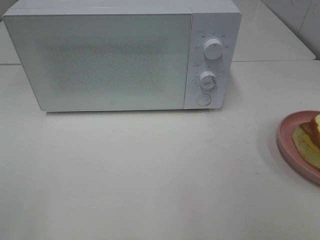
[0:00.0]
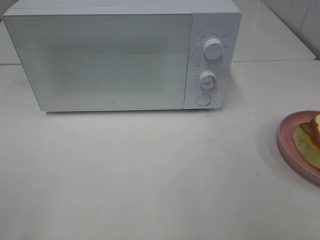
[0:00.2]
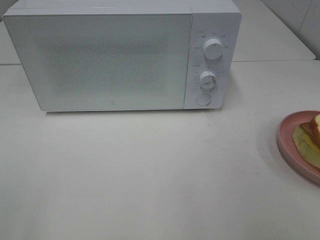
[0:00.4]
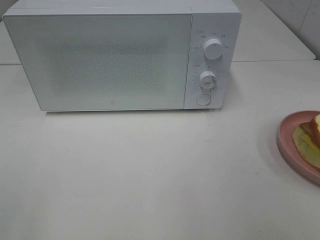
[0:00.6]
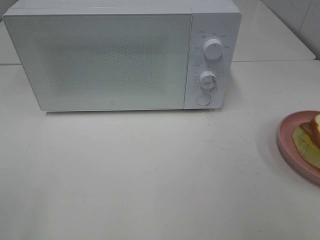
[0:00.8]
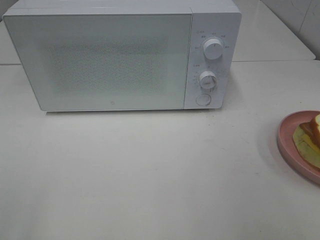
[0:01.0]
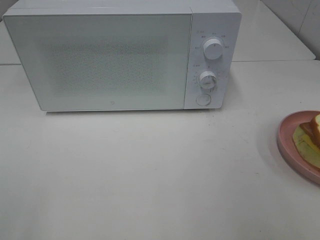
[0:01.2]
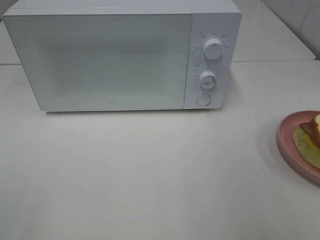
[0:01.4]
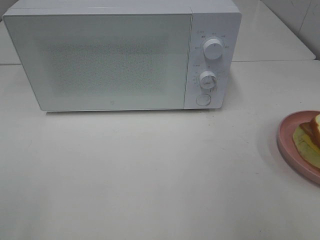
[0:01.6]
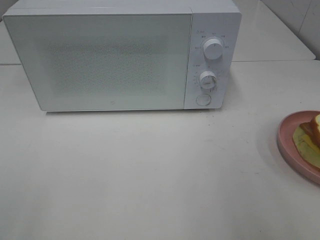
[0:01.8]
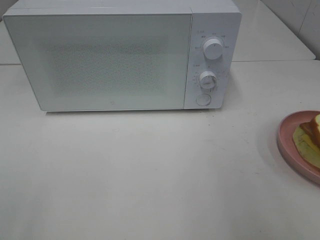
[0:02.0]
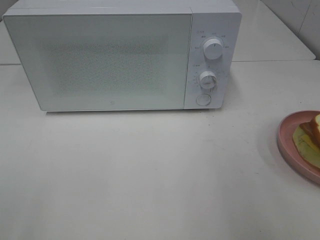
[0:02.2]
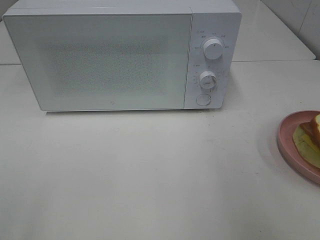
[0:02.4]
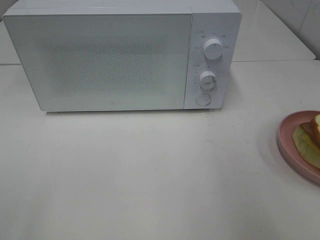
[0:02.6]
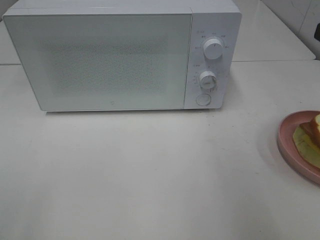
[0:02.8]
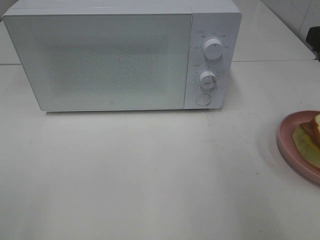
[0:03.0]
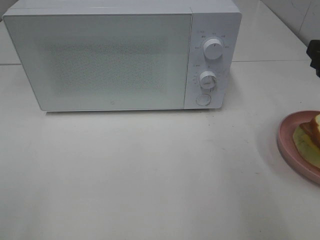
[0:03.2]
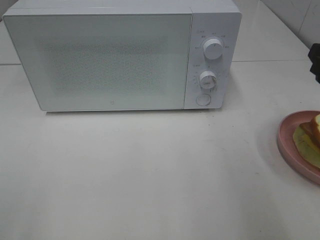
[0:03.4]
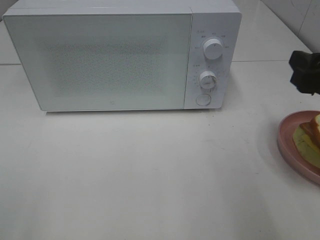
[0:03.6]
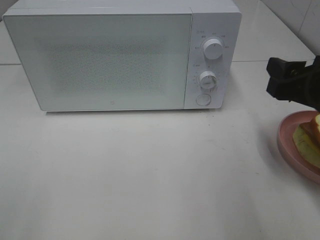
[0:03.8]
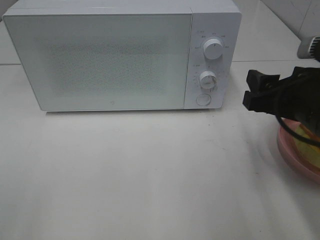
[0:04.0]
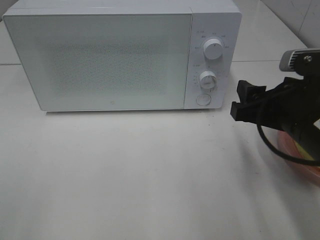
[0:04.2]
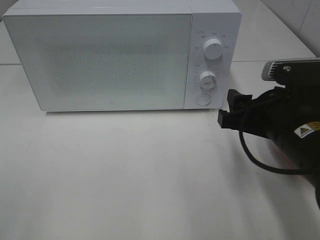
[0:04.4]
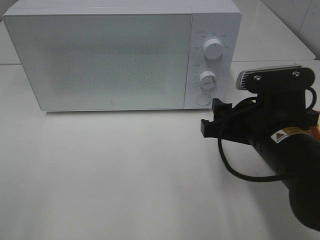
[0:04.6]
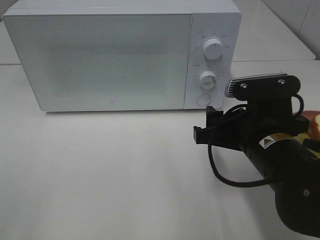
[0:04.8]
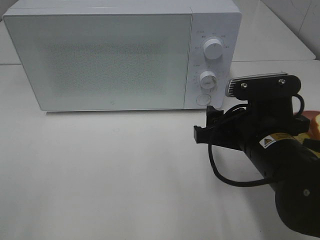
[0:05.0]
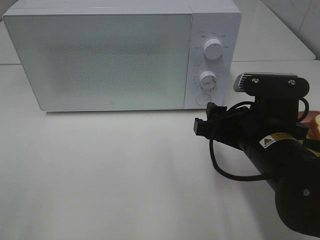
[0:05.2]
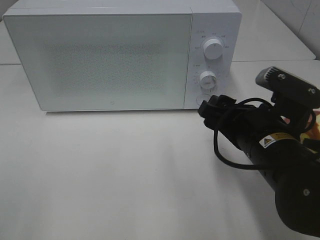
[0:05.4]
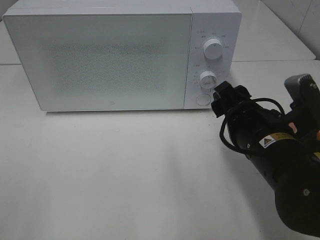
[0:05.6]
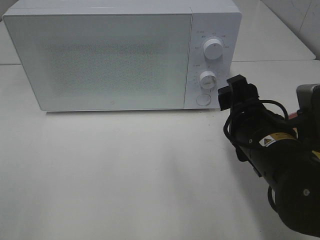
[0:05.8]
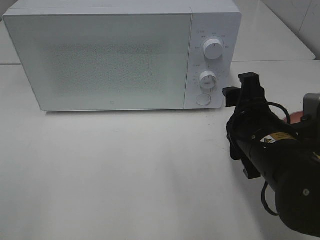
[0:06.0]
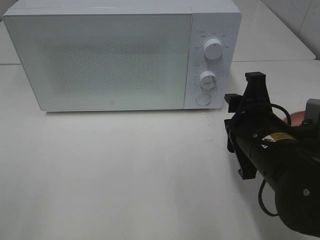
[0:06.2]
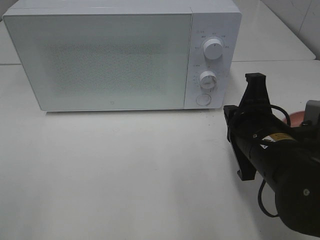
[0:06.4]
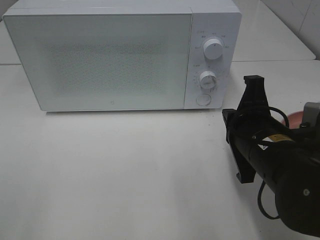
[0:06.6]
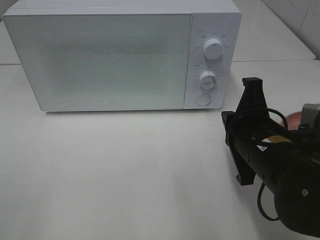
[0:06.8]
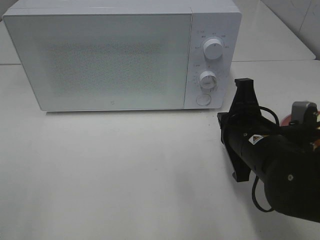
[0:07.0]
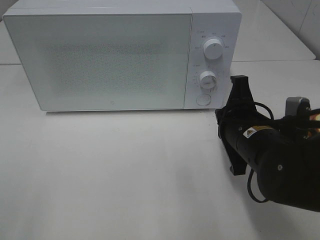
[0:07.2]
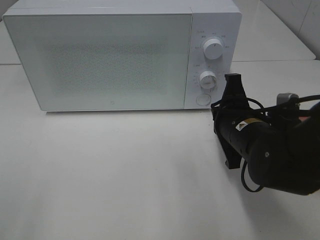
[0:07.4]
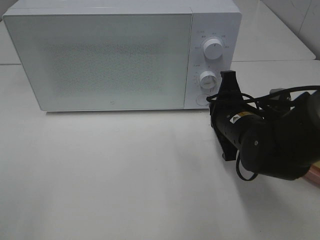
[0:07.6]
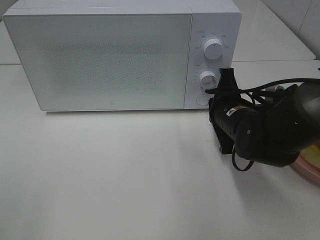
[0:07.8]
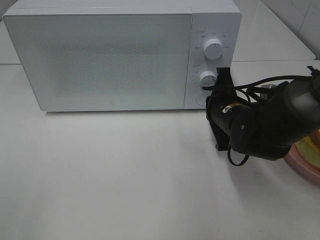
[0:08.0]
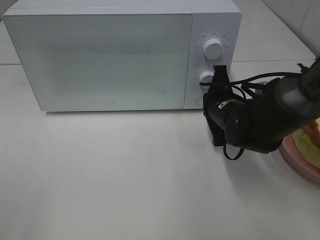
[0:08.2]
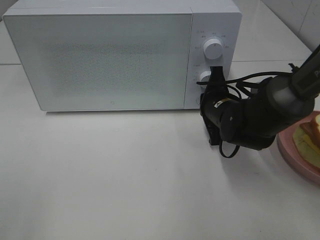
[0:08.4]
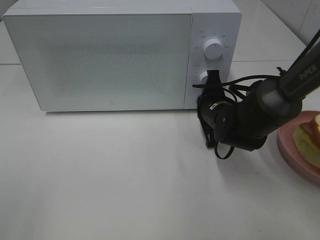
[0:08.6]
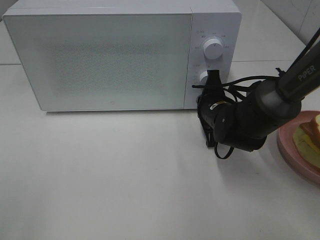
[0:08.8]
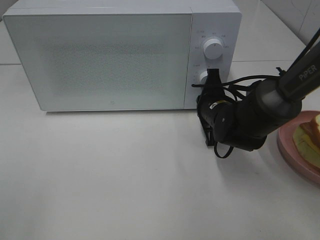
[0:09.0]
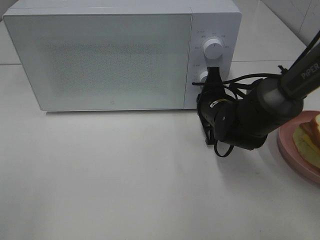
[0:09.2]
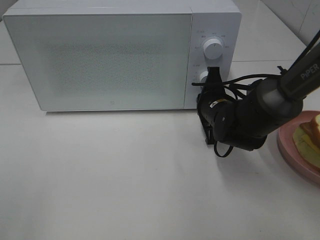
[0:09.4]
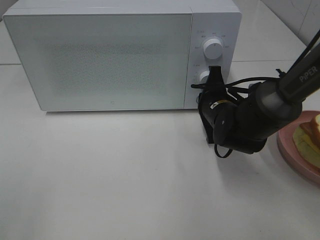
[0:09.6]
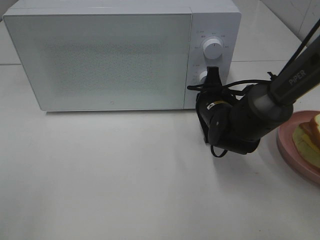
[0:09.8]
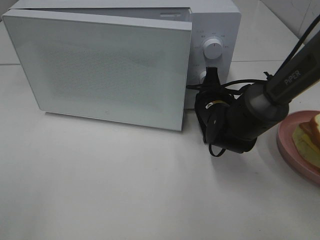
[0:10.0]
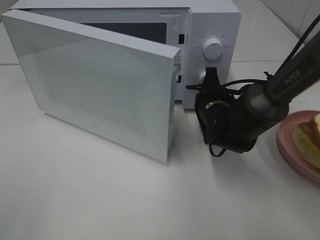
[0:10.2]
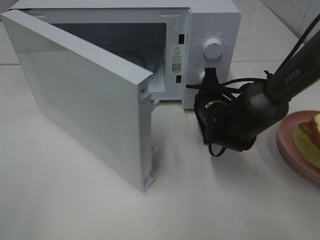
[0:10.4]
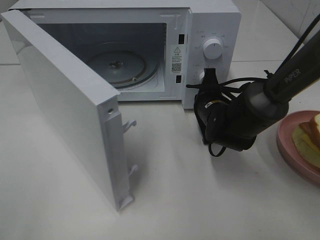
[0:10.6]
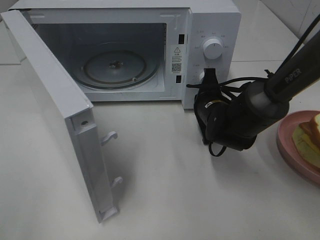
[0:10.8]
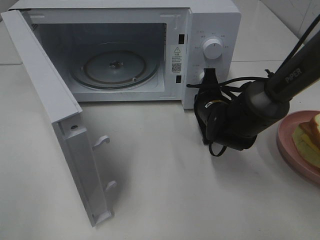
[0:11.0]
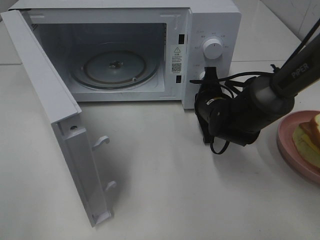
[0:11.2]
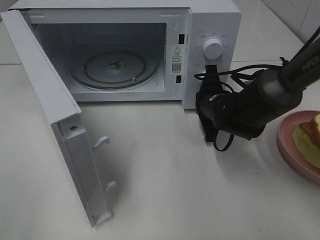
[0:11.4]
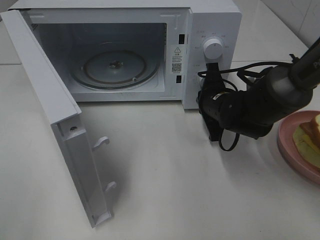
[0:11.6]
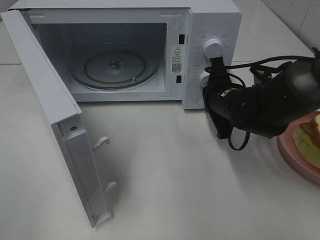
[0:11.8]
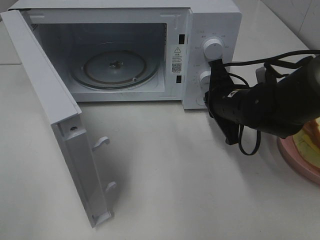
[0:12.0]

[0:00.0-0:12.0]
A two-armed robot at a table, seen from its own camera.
Task of the whole recording: Heat Sandwich.
Step, 0:00.0 to 0:11.8: Right hand: press the switch.
0:03.0 to 0:04.4: The right gripper is displaced to the left and downward by approximately 15 cm.
0:06.0 to 0:07.6: The right gripper is displaced forward by some 10 cm, and closes its fingers.
0:07.6 to 0:09.0: The right gripper heads forward, covering some 5 cm.
0:10.4 to 0:12.0: The right gripper changes place by some 5 cm.

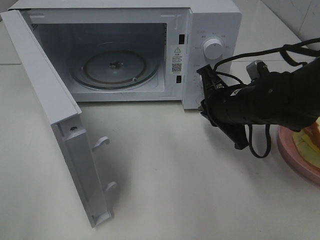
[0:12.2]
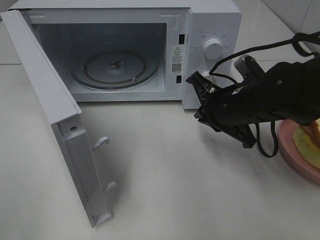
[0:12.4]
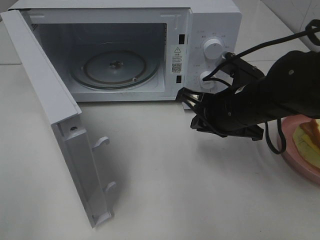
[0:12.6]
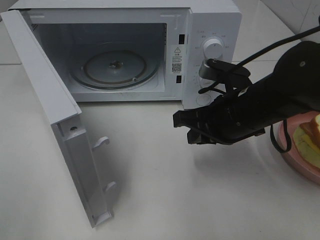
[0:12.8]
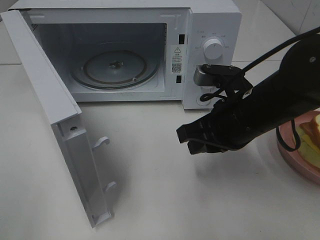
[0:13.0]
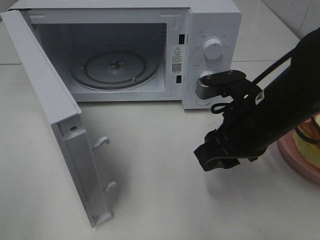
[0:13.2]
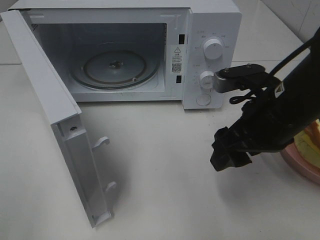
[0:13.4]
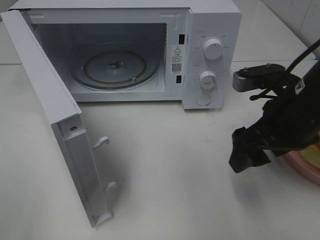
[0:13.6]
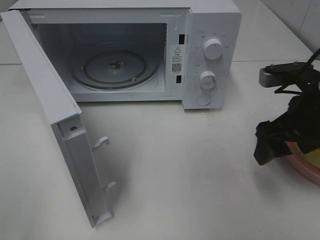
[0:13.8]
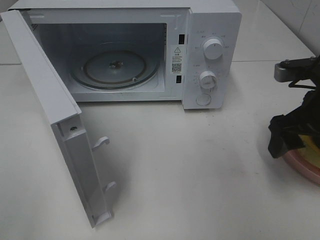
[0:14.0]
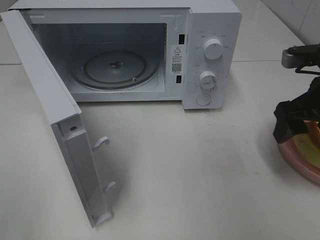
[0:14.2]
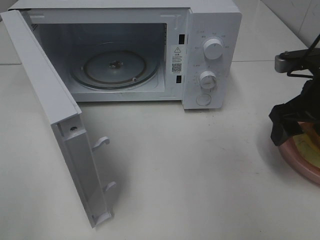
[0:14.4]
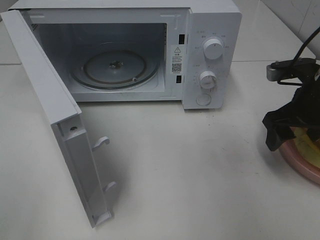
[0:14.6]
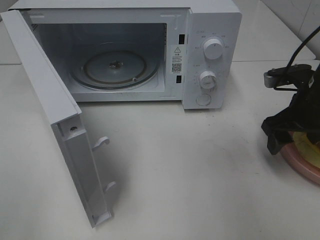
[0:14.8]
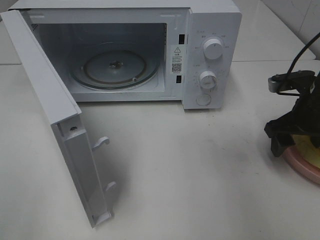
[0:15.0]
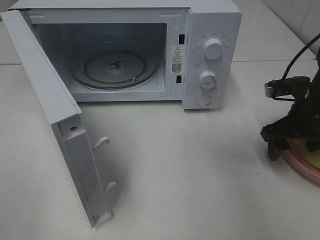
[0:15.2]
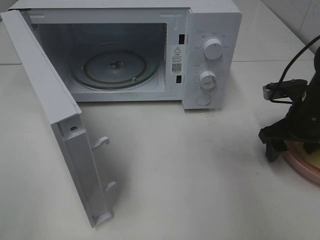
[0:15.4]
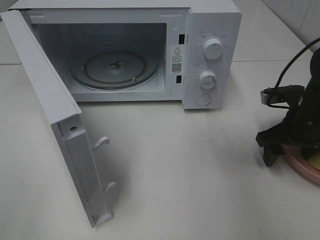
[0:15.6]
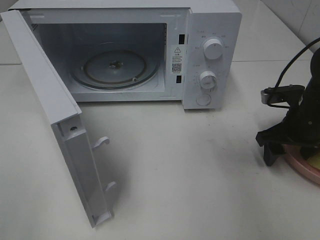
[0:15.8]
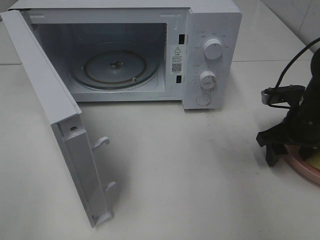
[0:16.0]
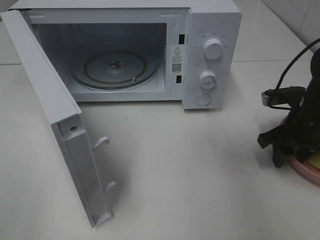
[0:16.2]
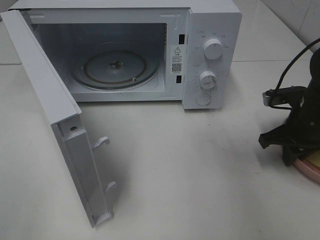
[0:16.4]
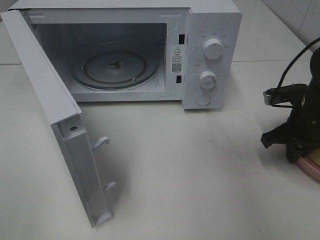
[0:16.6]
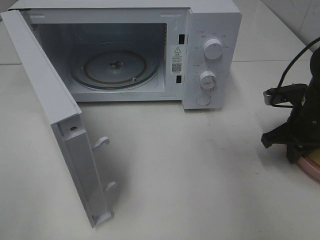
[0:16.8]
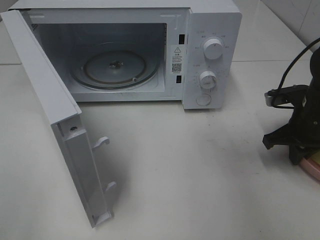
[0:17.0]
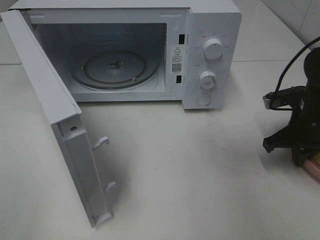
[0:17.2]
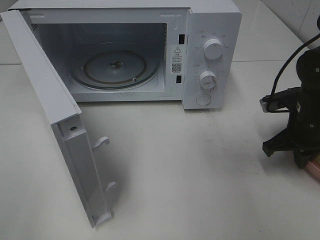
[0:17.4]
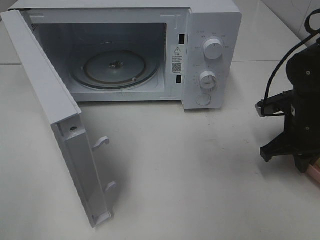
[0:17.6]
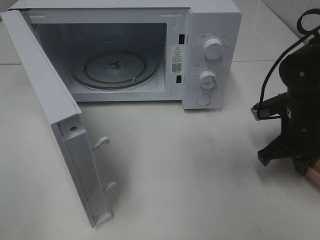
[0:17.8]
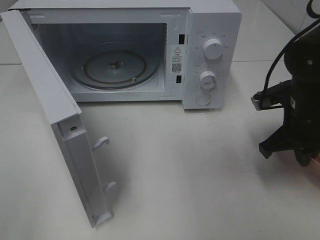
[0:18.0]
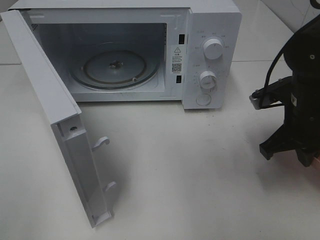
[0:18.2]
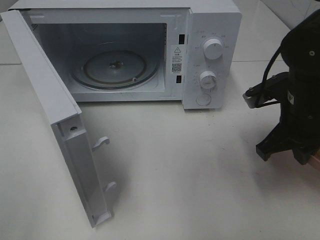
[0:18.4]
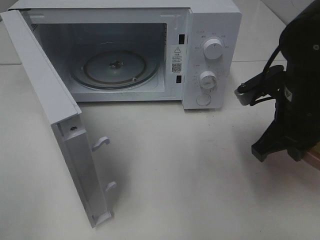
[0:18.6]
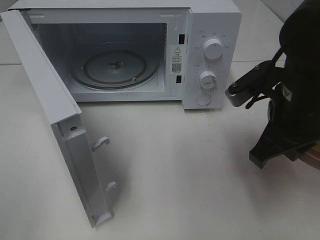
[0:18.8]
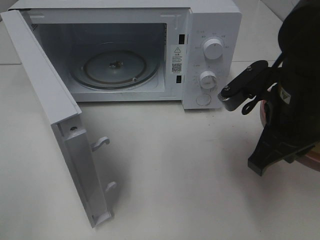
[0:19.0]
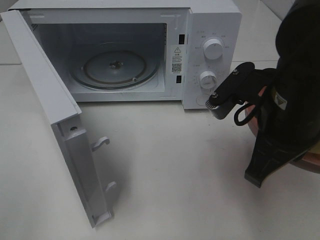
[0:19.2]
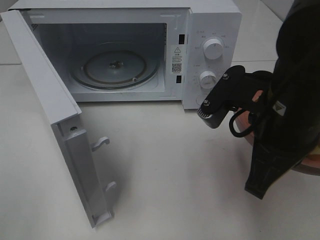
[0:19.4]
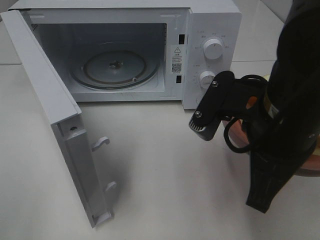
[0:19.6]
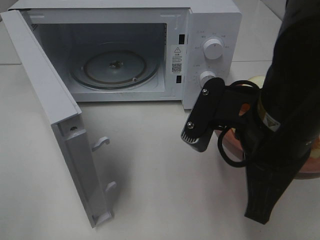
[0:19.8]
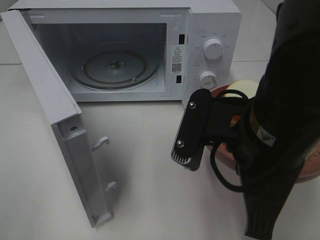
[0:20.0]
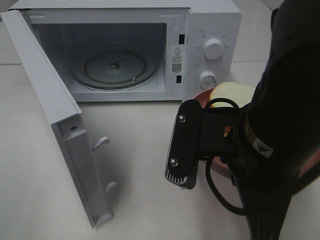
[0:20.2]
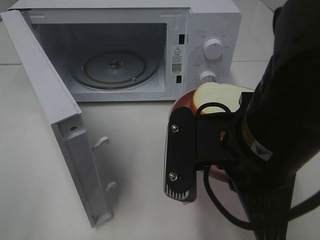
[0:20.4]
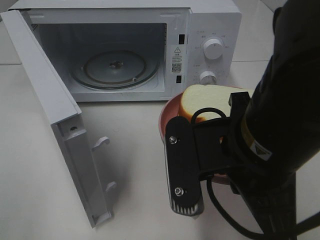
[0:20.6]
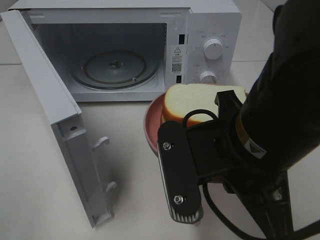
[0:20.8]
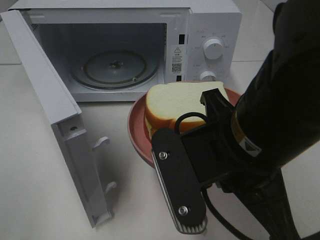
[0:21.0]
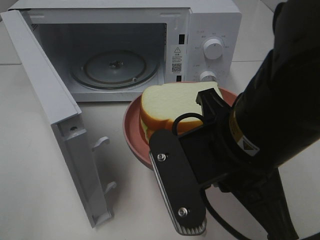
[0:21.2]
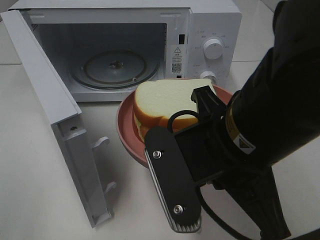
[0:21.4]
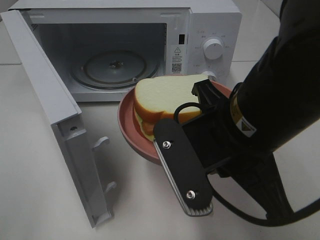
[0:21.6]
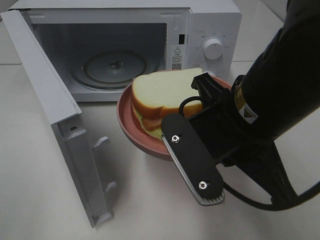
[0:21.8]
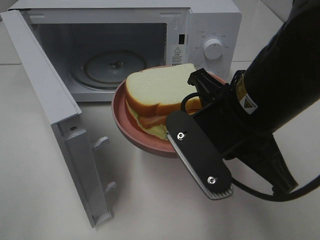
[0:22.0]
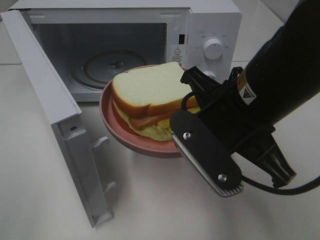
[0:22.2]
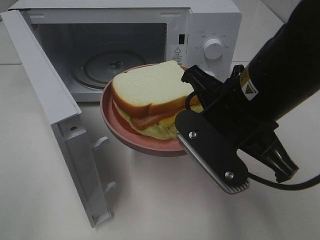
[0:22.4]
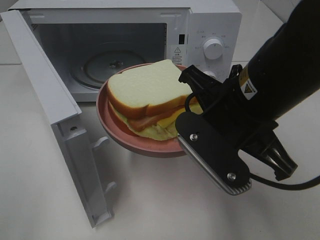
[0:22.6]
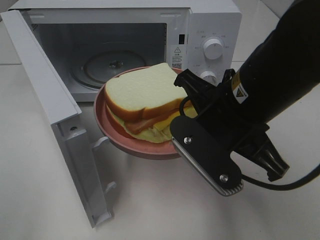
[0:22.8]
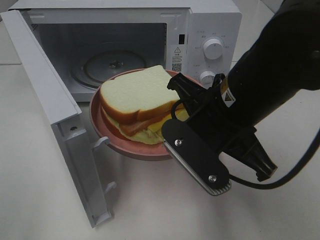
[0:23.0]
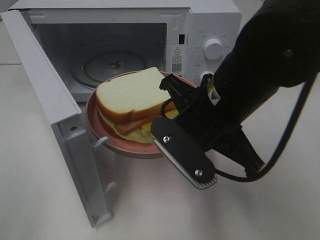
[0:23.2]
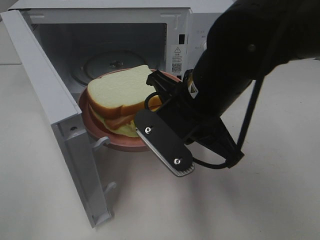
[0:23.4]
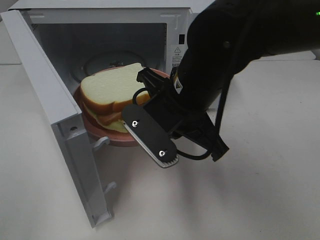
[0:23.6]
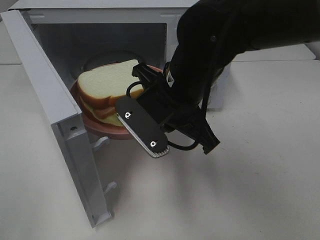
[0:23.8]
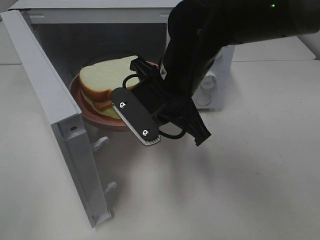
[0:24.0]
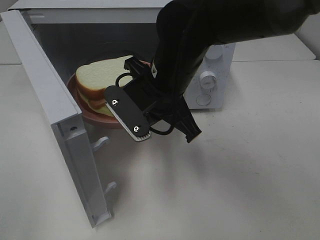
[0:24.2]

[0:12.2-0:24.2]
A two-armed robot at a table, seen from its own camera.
Task of the whole recording: Heat Sandwich.
Step, 0:12.2 to 0:17.2: Right hand: grab the plate with the sandwich.
0:12.2 to 0:13.8: The right gripper heads to the right, upward and backward, covering some 10 cm, and opens.
0:13.8 to 0:15.2: The right gripper goes some 10 cm forward and downward.
0:15.2 to 0:16.6: The right gripper closes its fingers.
0:16.6 to 0:18.2: The right gripper heads to the left, covering some 5 cm.
0:18.2 to 0:19.8: The right gripper goes about 15 cm to the left, backward and upward.
0:21.2 to 0:22.6: The right gripper shifts approximately 5 cm forward.
0:22.6 to 0:24.2: The right gripper moves forward and to the left, about 10 cm.
